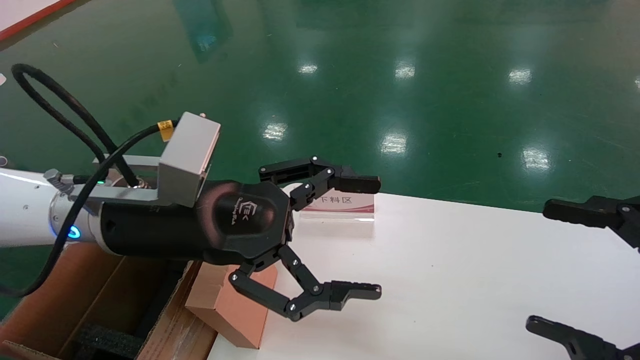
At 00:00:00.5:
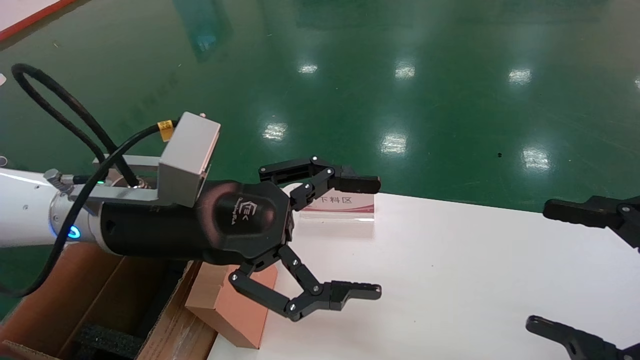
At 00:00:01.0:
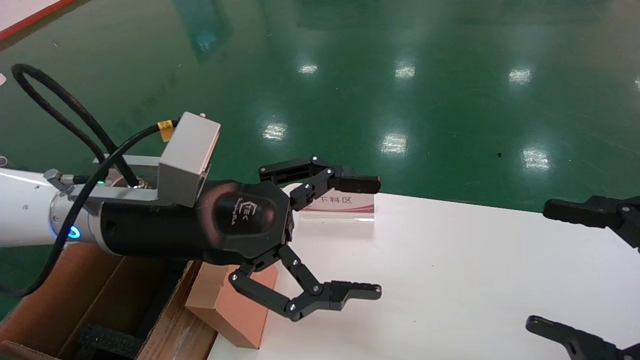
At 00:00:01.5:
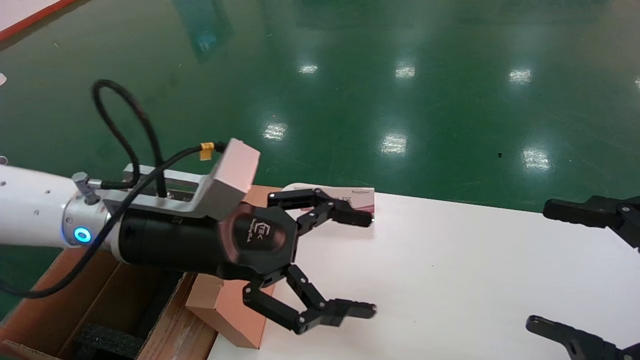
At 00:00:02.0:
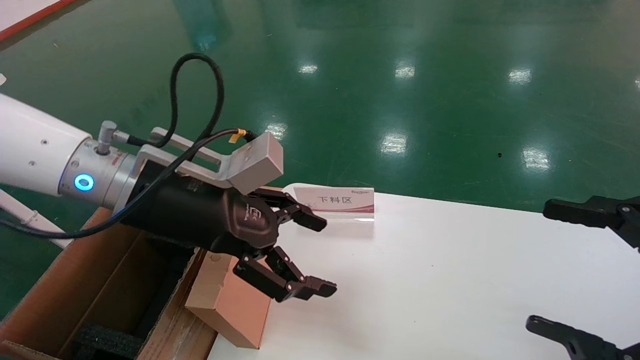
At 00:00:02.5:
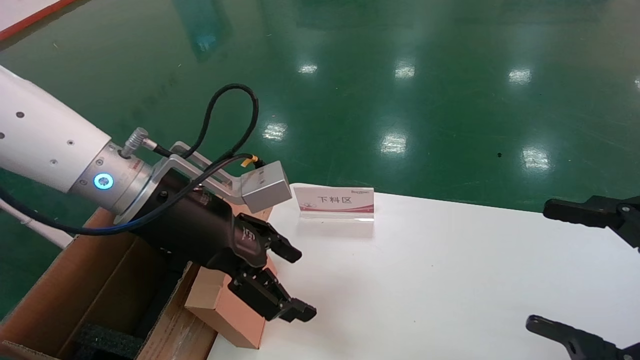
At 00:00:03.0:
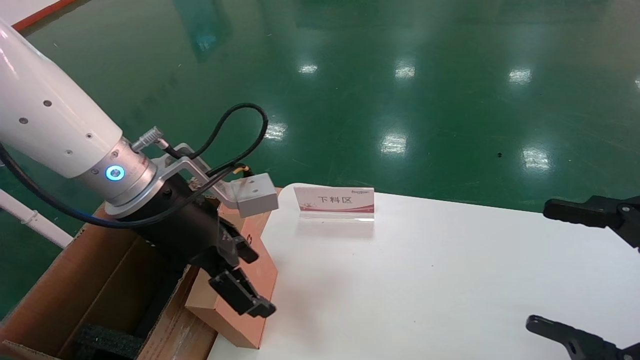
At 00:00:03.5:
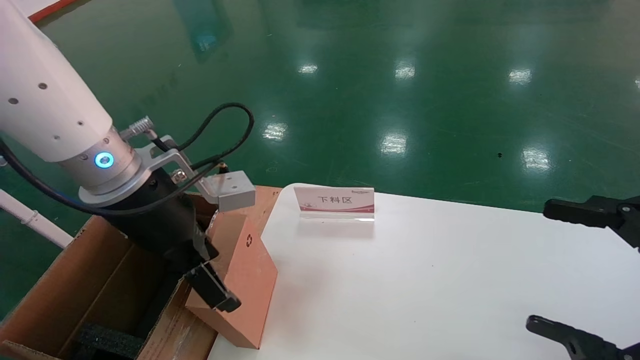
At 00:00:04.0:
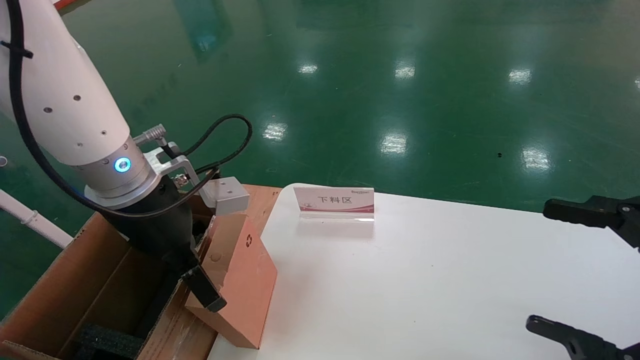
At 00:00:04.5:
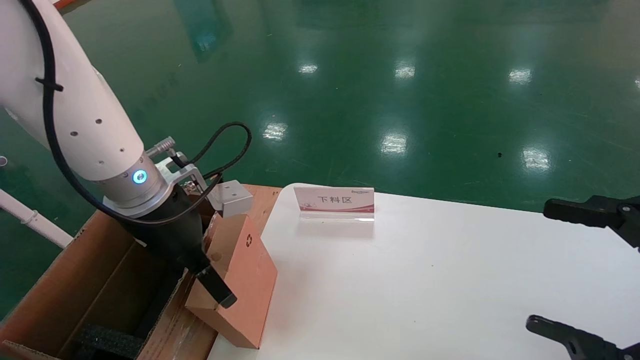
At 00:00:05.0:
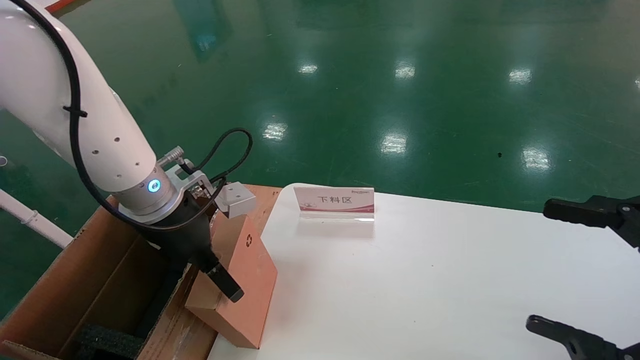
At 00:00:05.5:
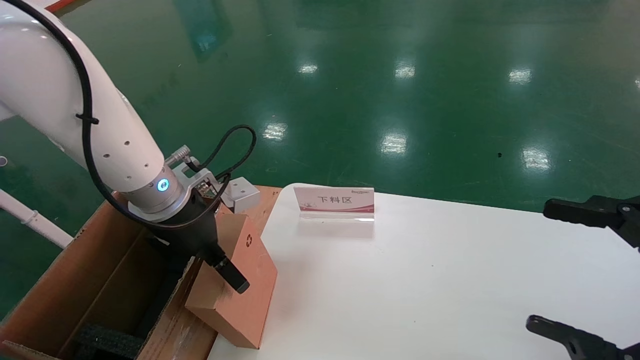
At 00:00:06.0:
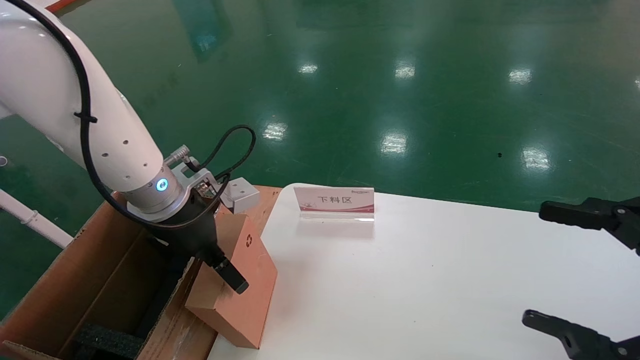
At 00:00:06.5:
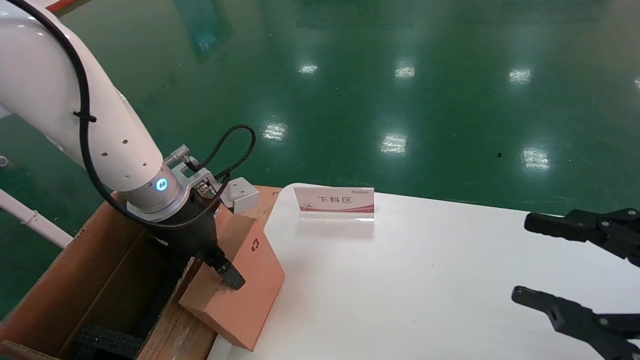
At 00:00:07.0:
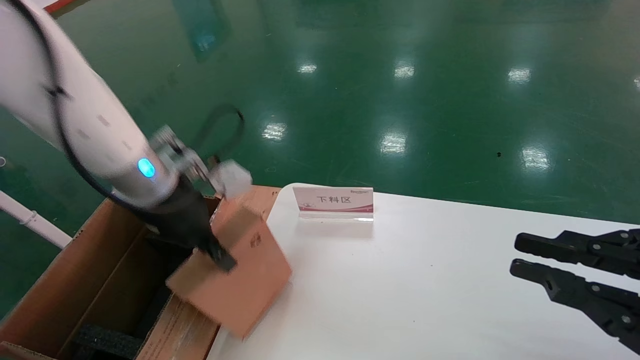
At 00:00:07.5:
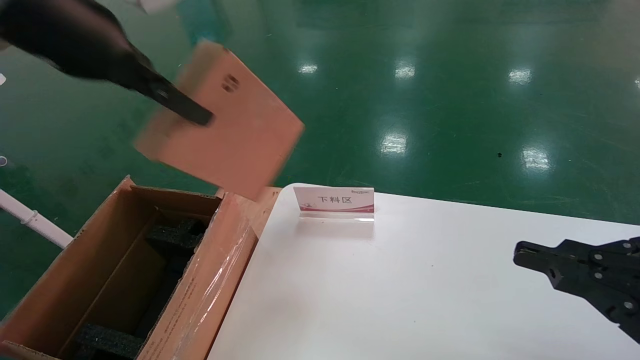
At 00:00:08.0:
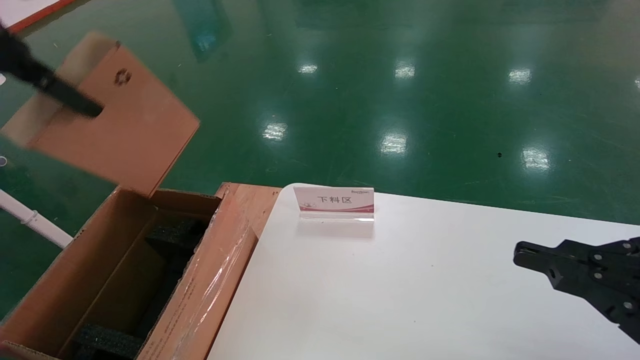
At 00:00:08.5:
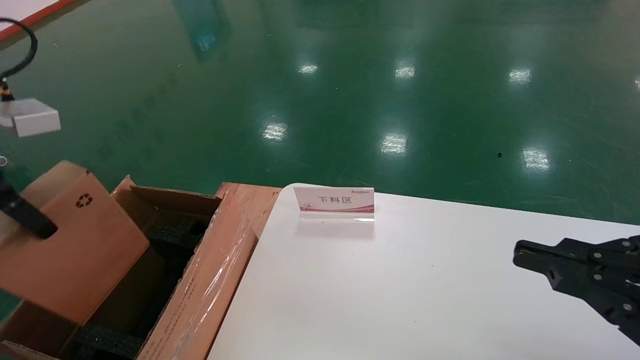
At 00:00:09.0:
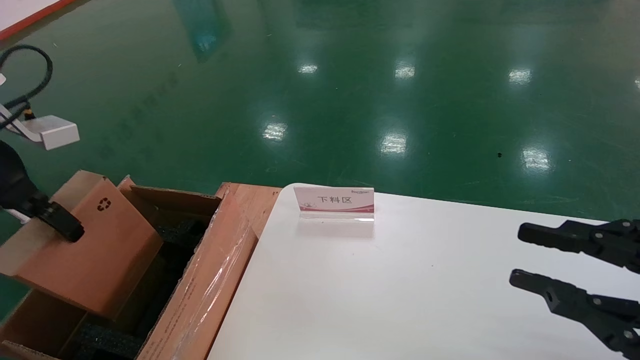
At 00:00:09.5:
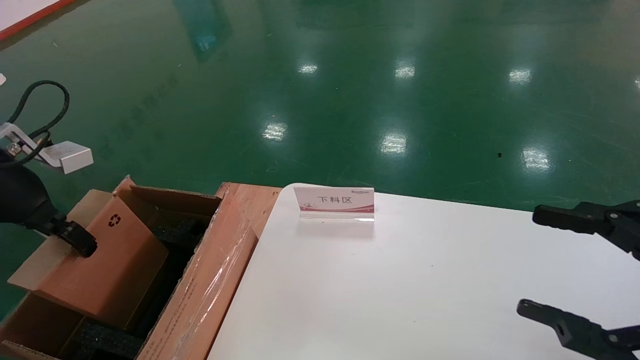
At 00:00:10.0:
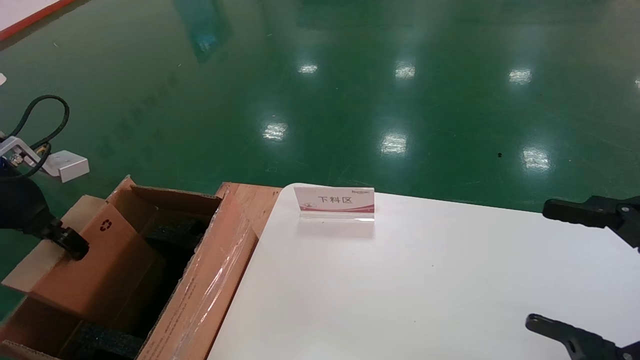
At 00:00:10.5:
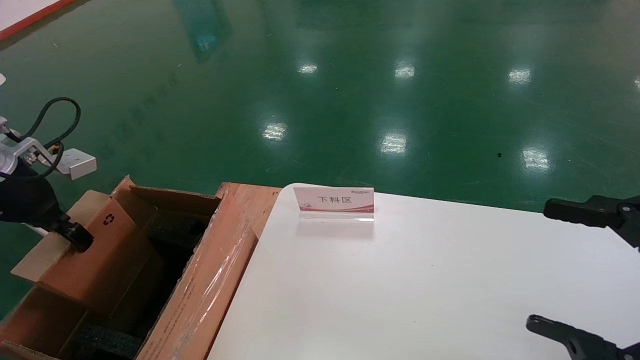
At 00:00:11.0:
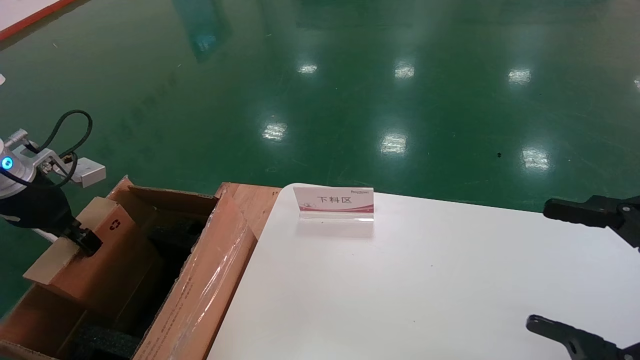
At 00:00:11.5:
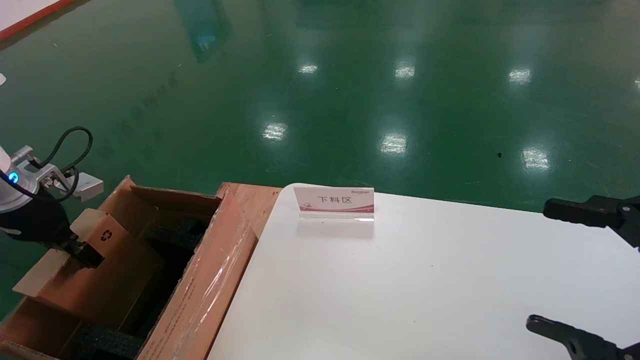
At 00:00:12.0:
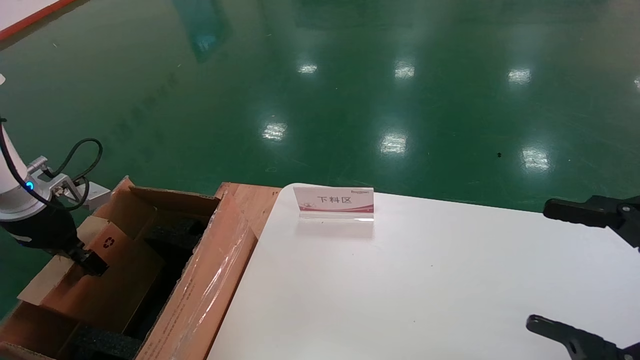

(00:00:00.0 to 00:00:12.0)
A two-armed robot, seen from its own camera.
Task of the whole recording: pick up the small cardboard box and load it into the large cardboard box.
Step, 00:00:01.5 - 00:00:07.0: Pick up the mouse and power cord box.
00:00:04.0 - 00:00:06.0: The left gripper ends up some 5 cm from where it was.
00:00:06.0 - 00:00:08.0: The left gripper goes some 30 cm upward, to the left and backward, and closes its fingers. The right gripper closes.
00:00:08.0 - 00:00:10.0: The right gripper opens; the left gripper moves downward and to the left, roughly 20 cm.
00:00:10.0 - 00:00:12.0: The left gripper shifts roughly 10 cm downward.

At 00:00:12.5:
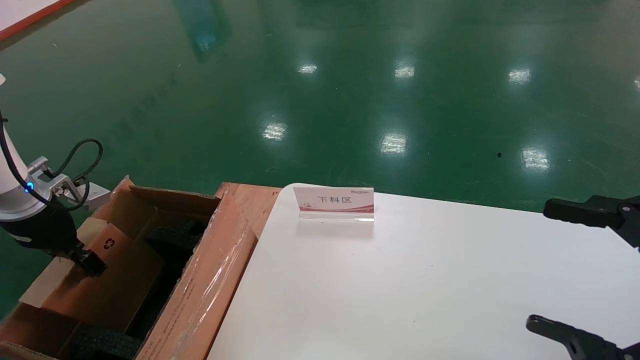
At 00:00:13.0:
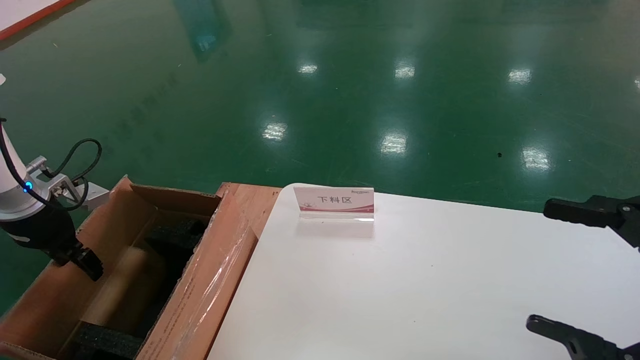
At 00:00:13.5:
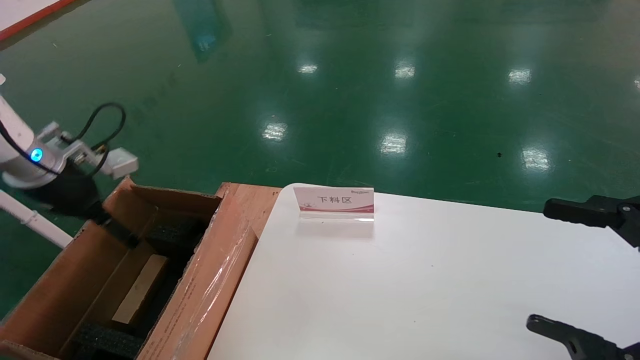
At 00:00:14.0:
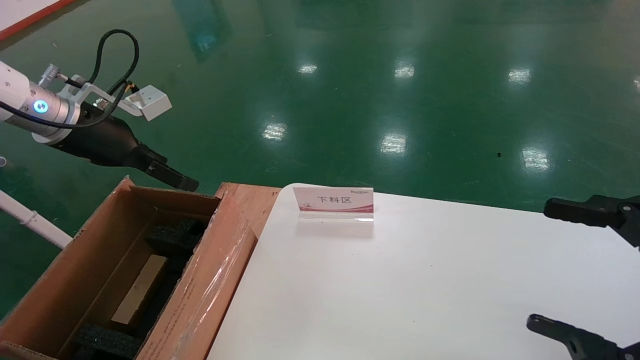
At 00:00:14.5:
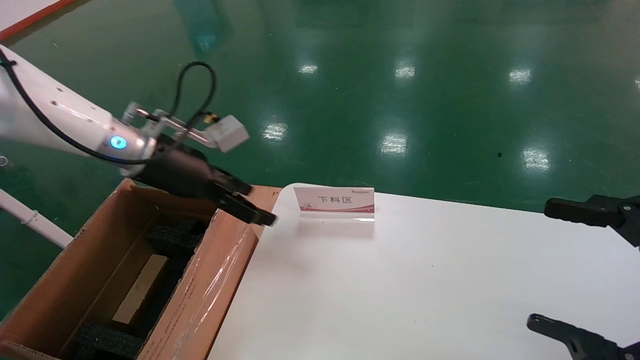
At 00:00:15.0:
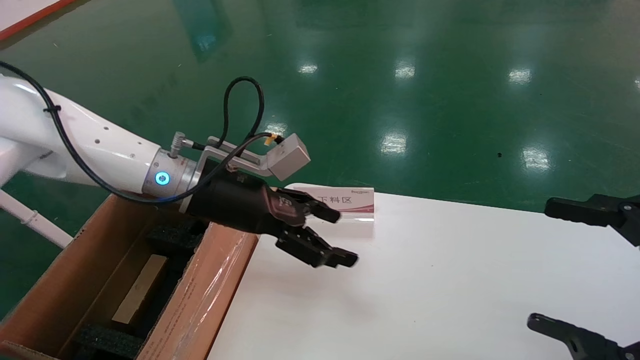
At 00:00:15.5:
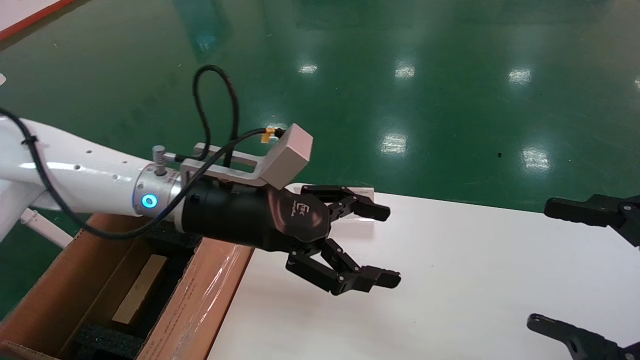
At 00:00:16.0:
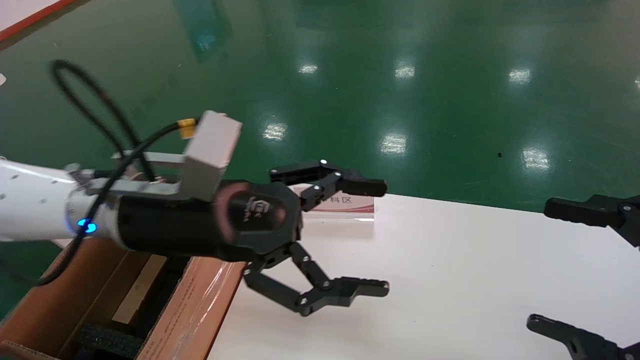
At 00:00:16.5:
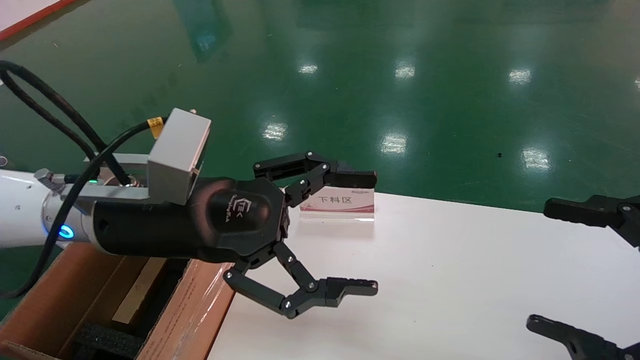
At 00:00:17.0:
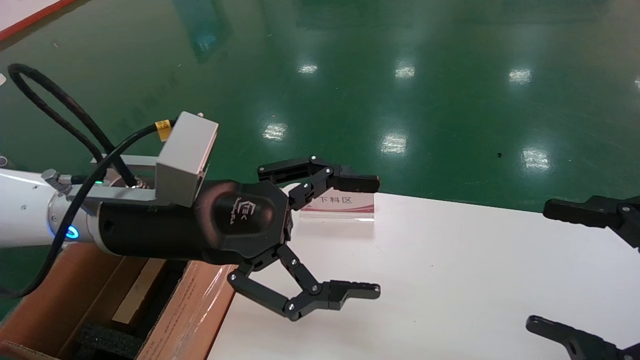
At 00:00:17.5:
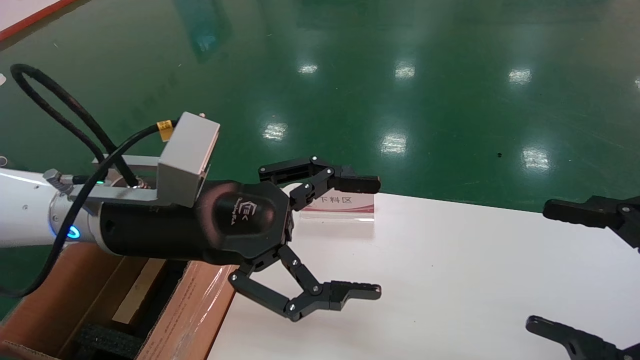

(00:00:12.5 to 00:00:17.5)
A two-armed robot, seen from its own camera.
Task of the whole recording: pick up the small cardboard box and load it into the large cardboard box.
00:00:12.5 - 00:00:15.0: The left gripper travels to the right by some 30 cm, and opens up.
00:00:15.0 - 00:00:17.5: The left gripper shifts about 10 cm backward.
